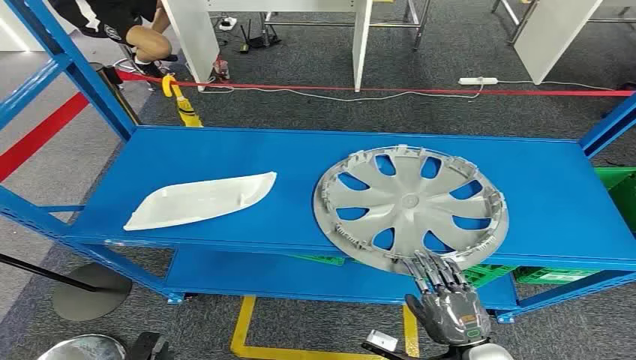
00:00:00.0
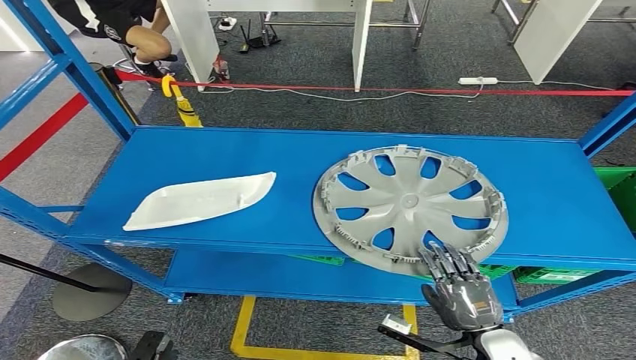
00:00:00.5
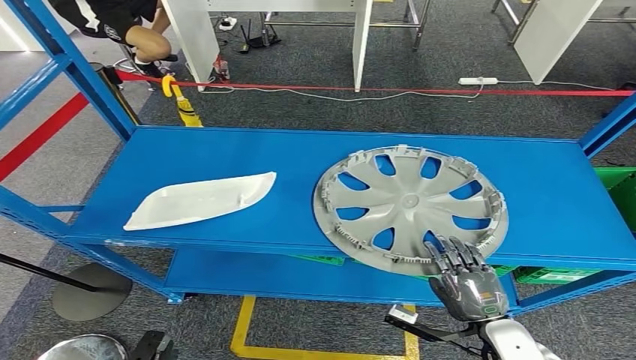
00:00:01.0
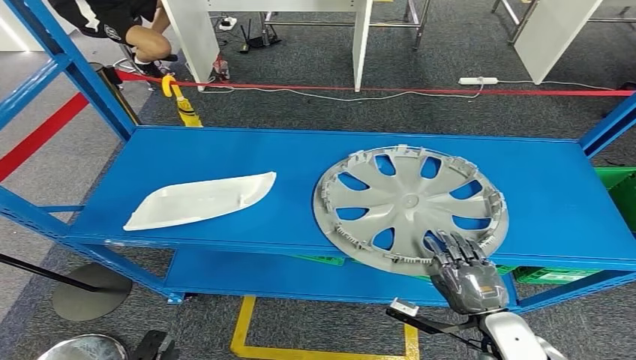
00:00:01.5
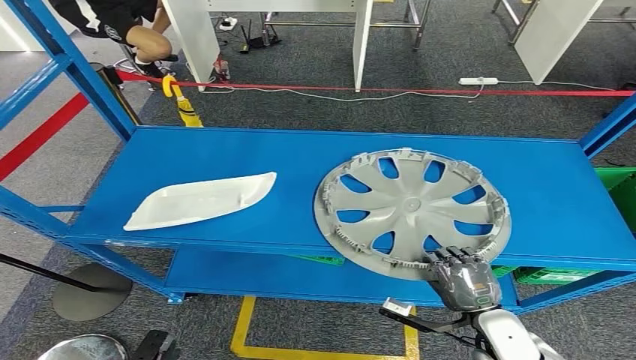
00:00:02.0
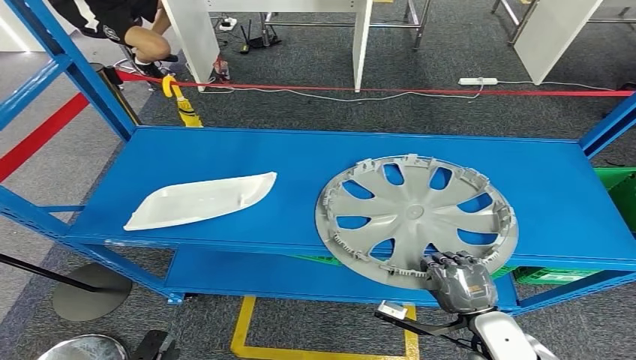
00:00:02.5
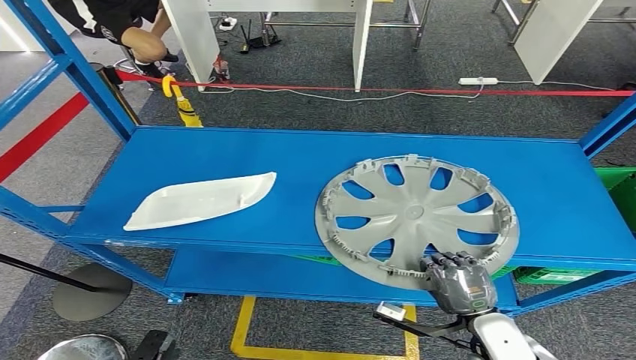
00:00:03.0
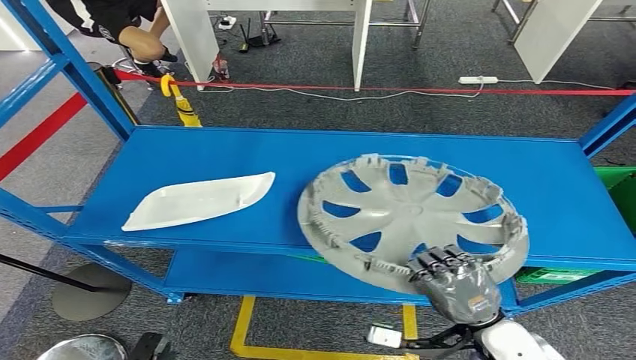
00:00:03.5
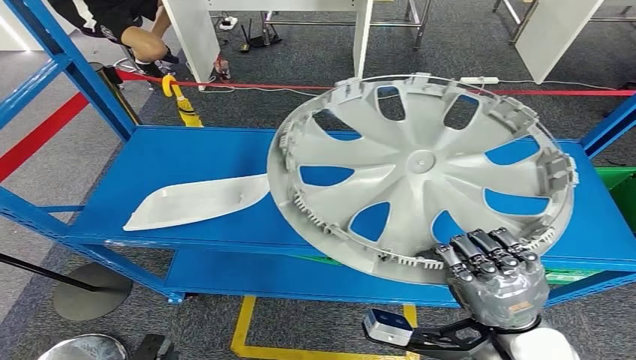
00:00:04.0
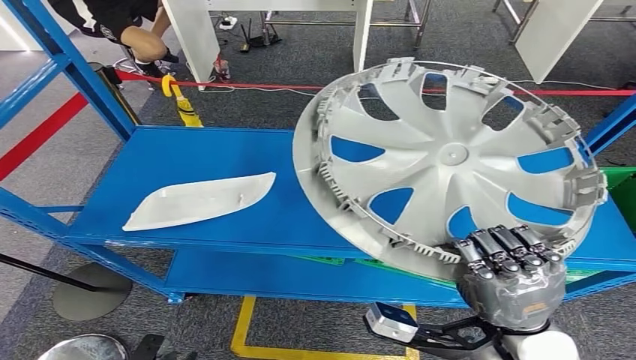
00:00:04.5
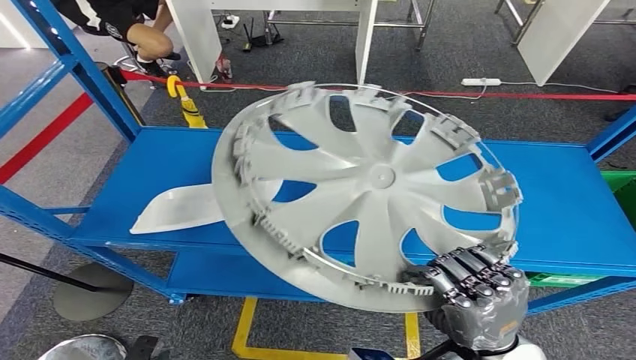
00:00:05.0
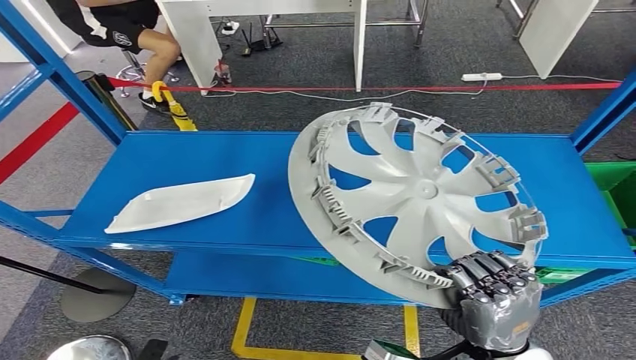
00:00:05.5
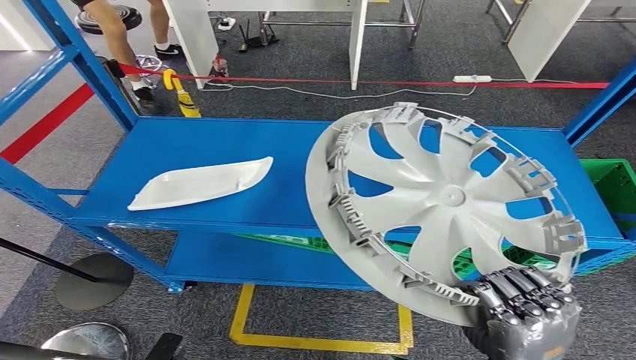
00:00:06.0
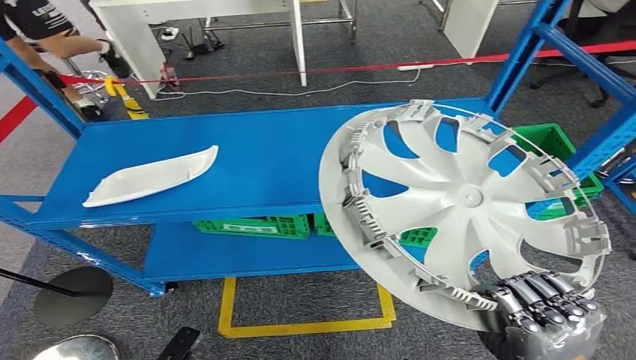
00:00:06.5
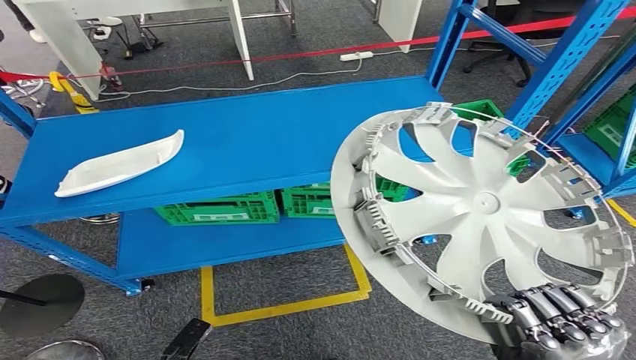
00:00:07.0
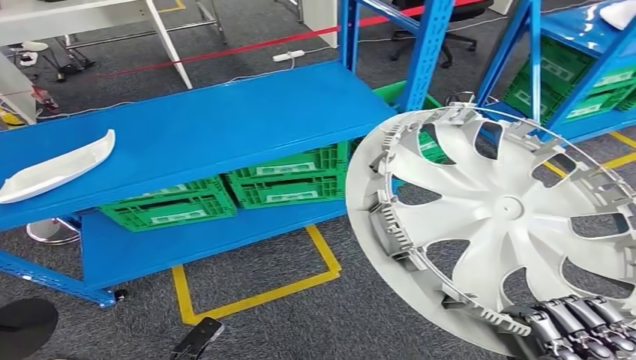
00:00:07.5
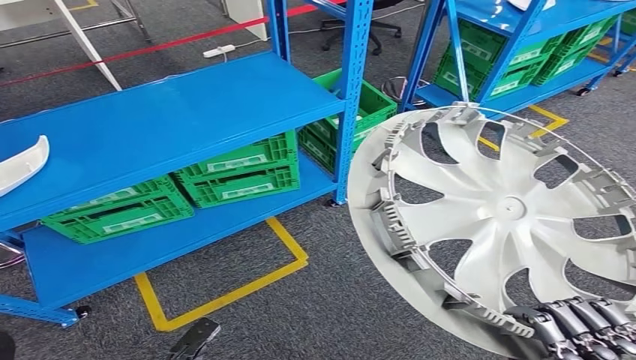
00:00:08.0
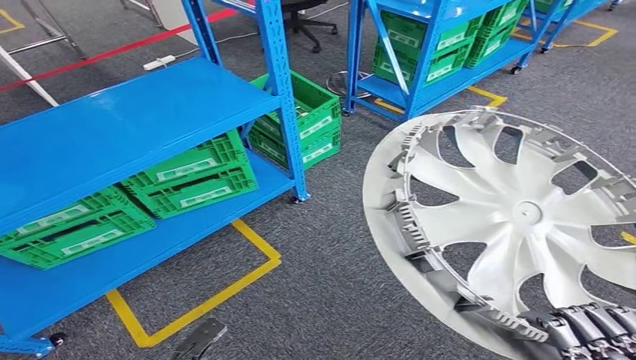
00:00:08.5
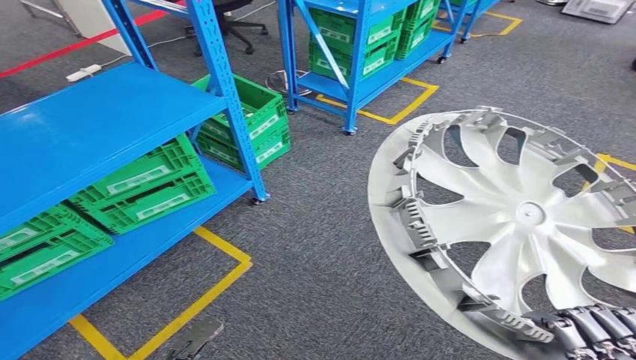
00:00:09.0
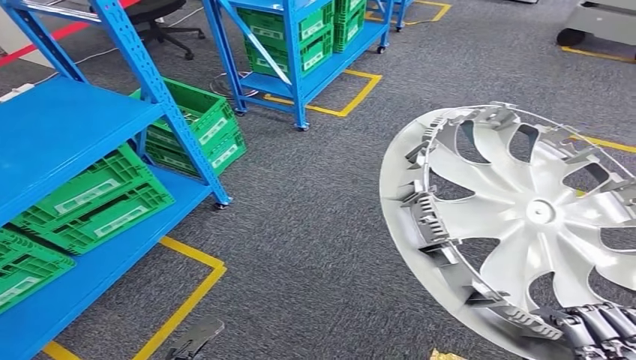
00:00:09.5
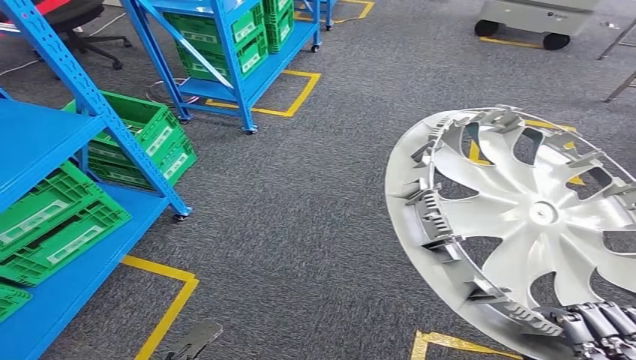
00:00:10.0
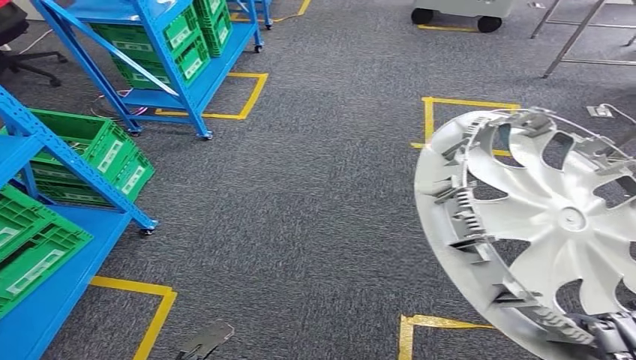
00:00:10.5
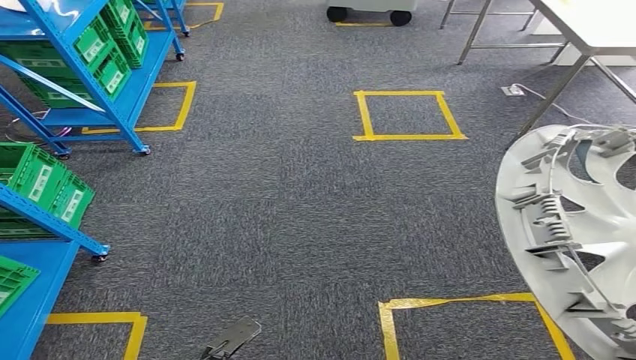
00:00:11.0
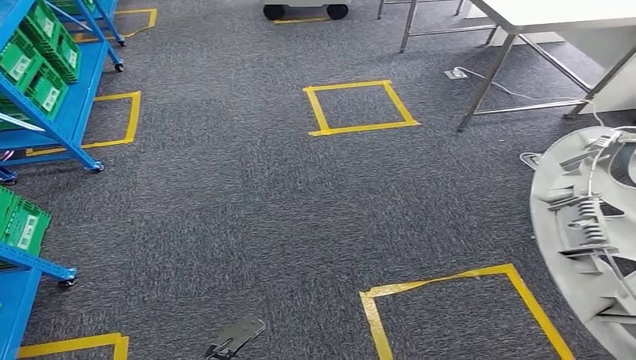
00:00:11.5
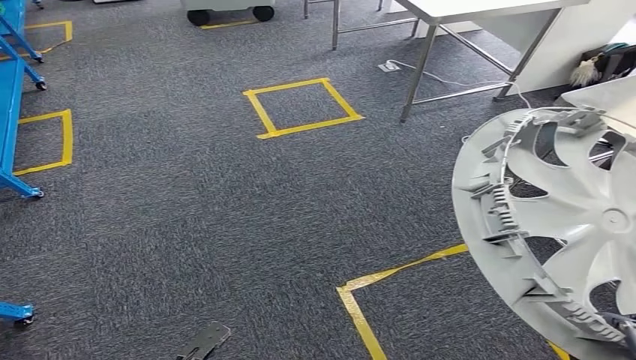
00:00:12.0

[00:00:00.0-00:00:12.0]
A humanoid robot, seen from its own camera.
Step, 00:00:00.0 to 00:00:05.0: Pick up the small component from the shelf.

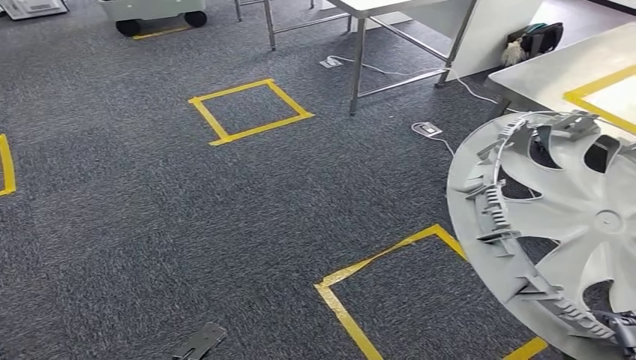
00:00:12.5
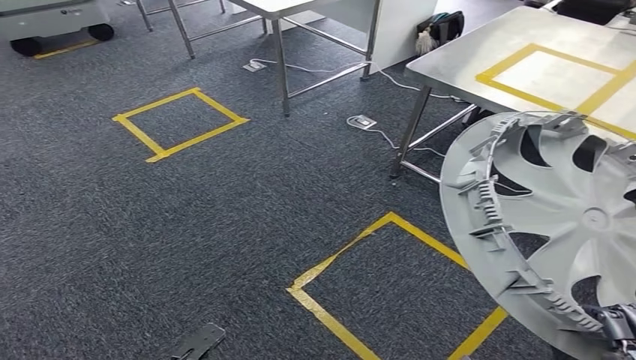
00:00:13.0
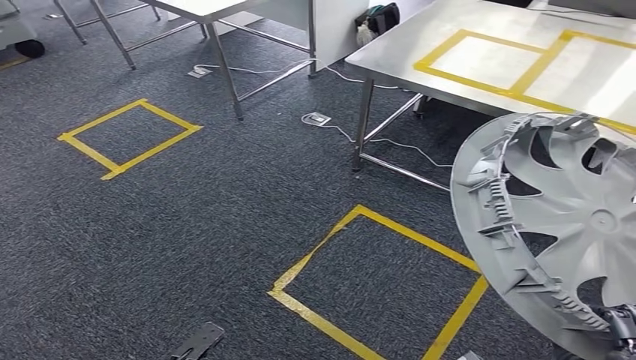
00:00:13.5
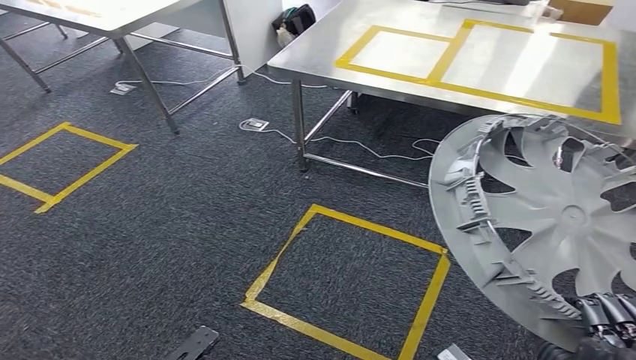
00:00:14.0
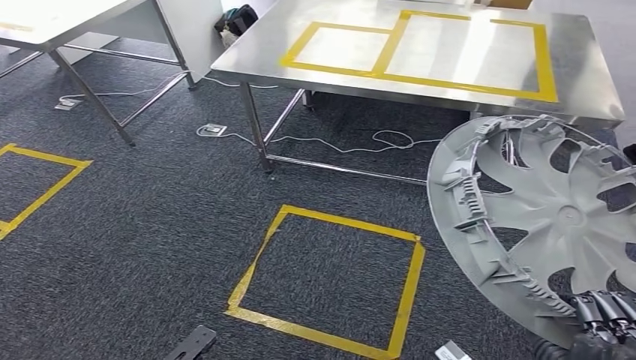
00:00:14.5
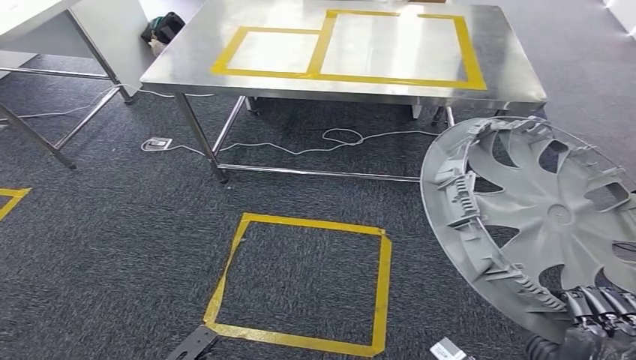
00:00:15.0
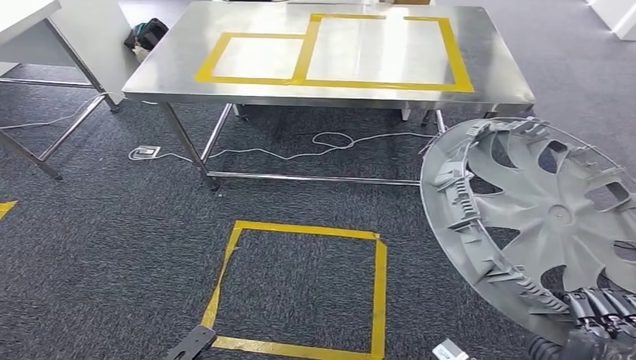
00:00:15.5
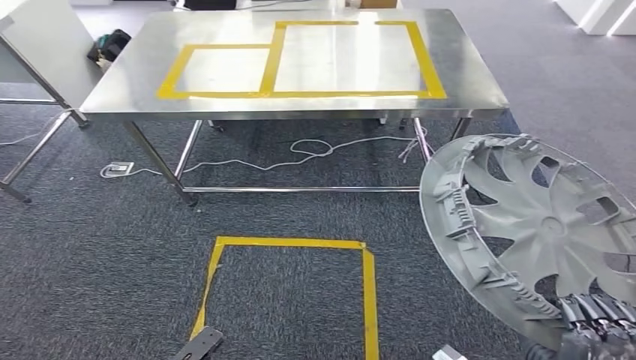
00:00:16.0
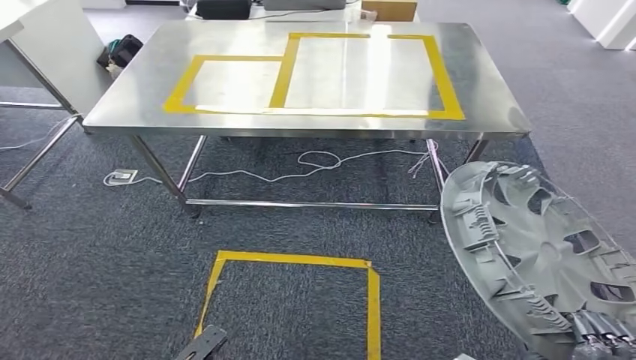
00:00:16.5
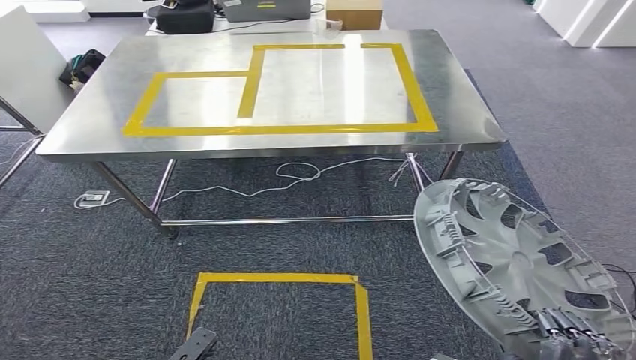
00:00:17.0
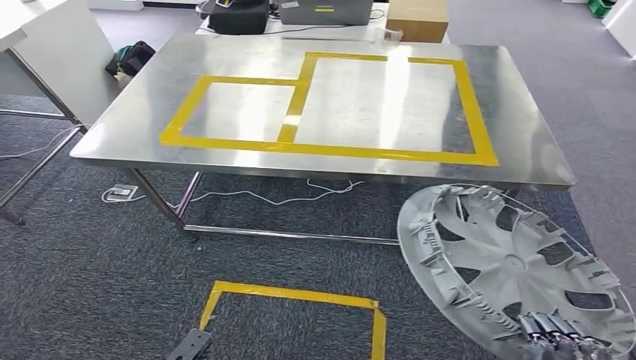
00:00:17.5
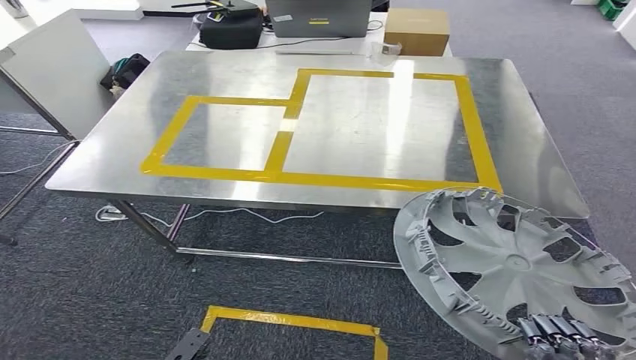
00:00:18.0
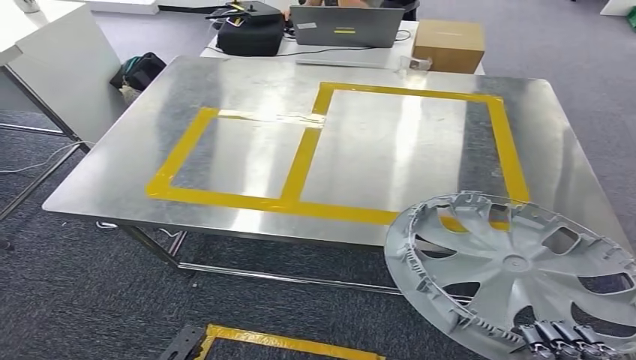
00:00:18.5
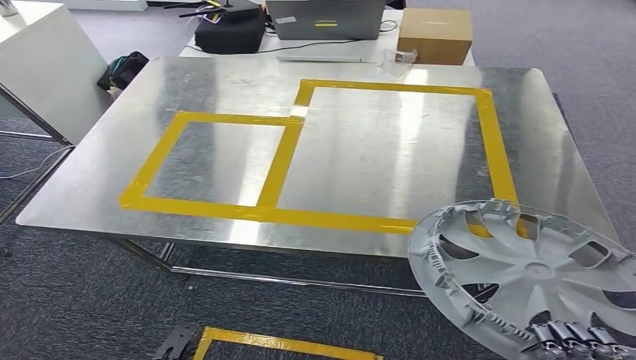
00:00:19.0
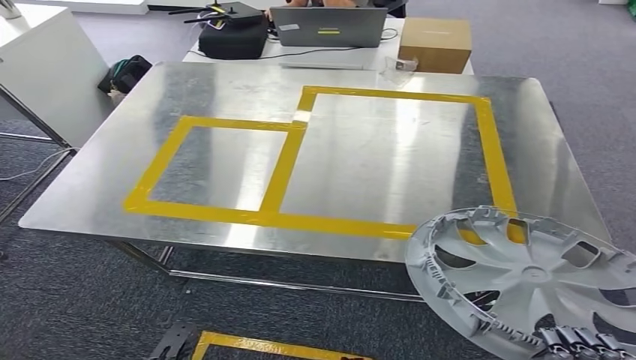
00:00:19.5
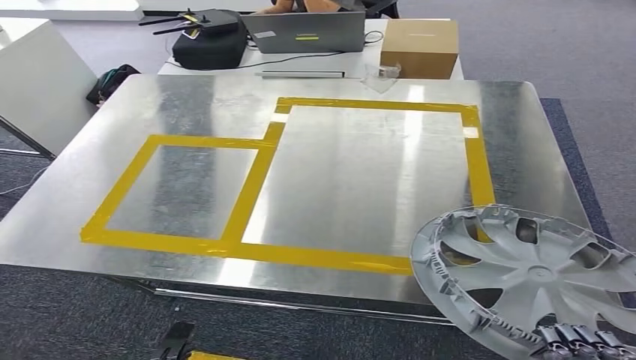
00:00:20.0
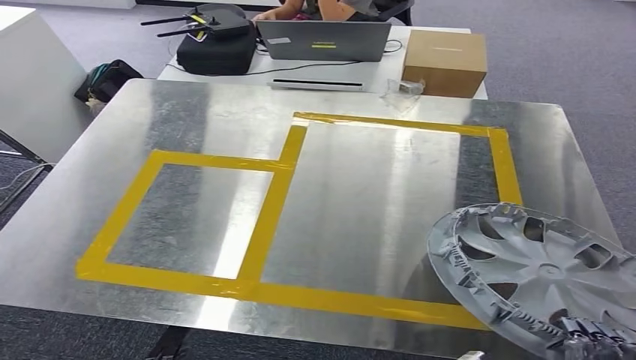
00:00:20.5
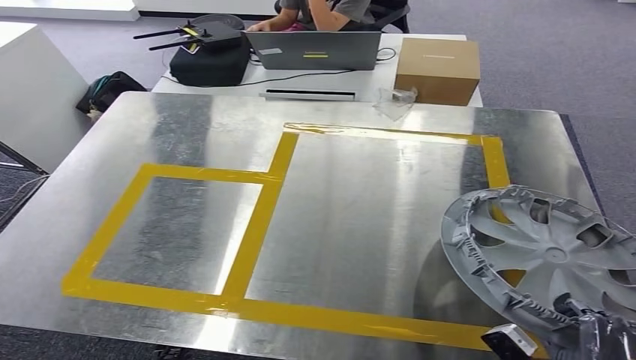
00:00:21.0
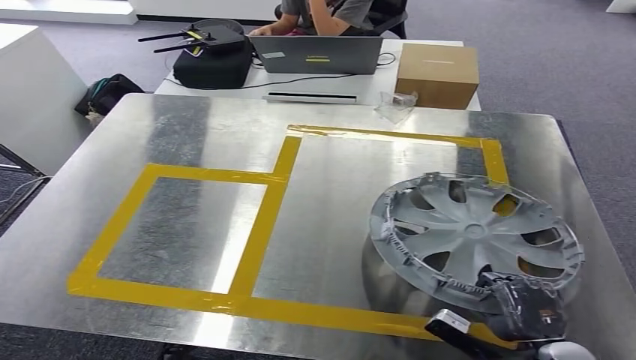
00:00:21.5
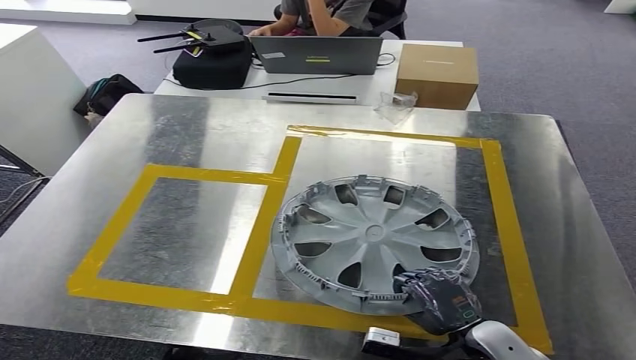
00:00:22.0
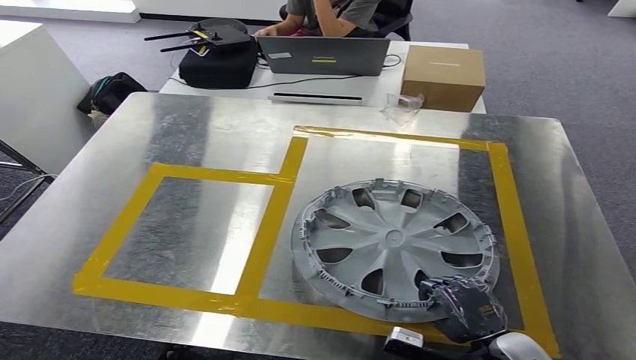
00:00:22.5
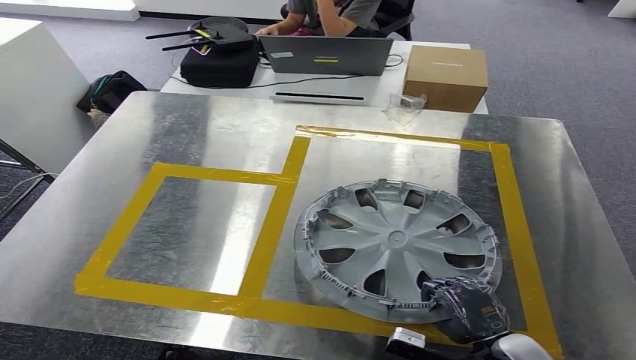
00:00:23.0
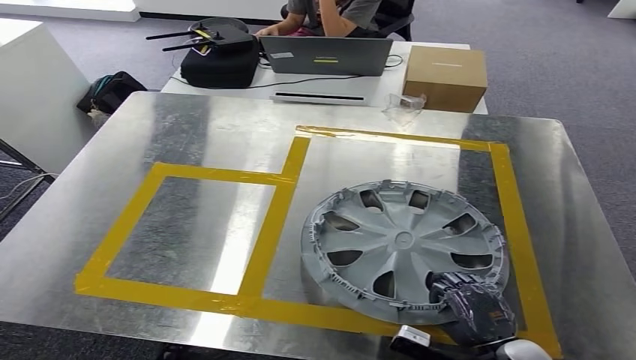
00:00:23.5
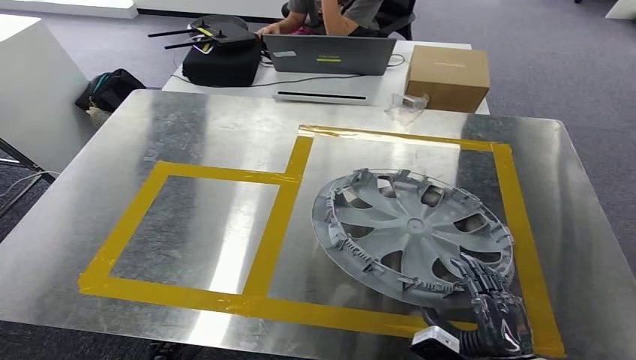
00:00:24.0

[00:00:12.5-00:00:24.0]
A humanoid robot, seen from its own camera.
Step, 00:00:12.5 to 00:00:18.0: Move the small component to the workbench.
